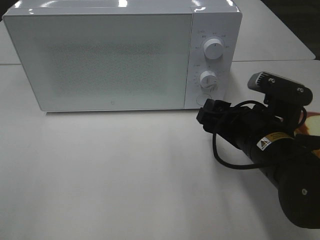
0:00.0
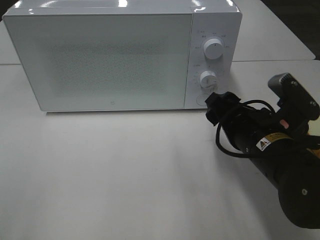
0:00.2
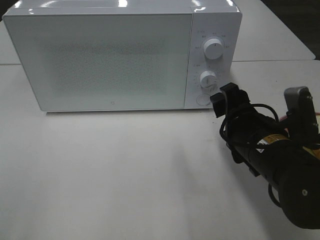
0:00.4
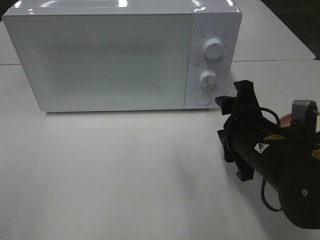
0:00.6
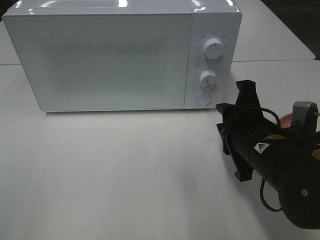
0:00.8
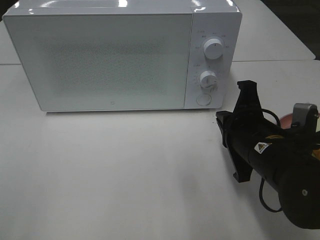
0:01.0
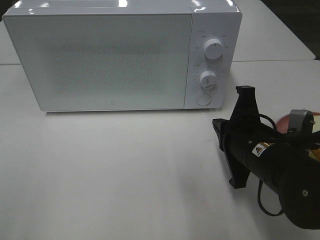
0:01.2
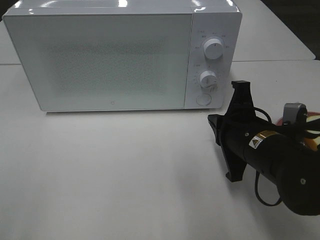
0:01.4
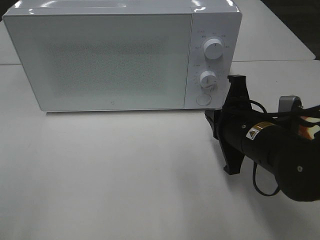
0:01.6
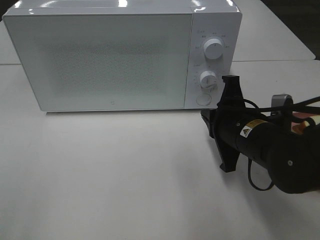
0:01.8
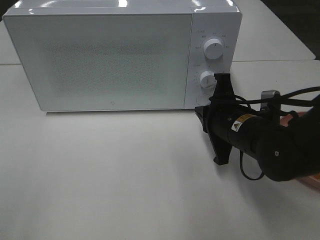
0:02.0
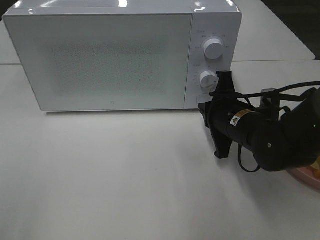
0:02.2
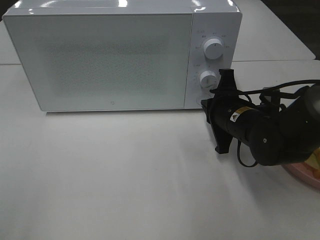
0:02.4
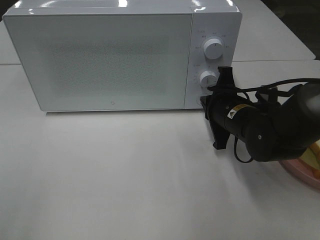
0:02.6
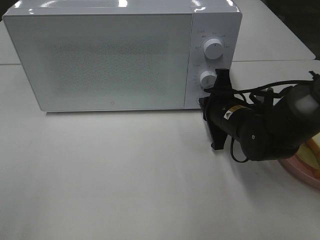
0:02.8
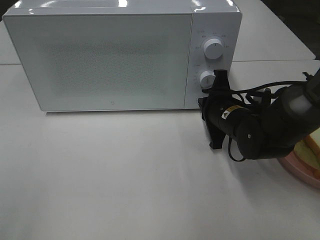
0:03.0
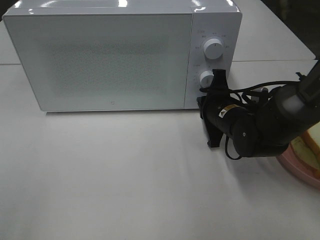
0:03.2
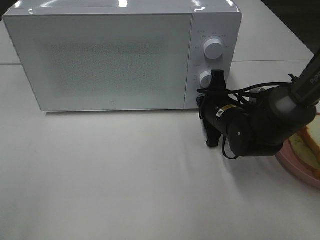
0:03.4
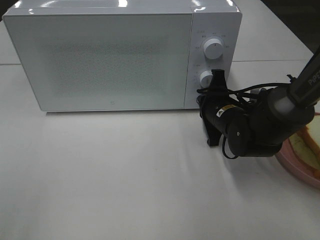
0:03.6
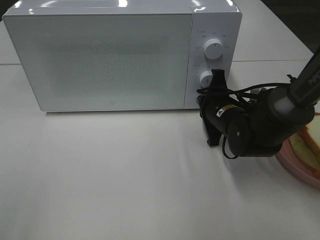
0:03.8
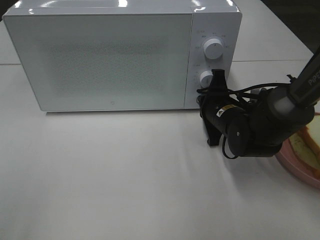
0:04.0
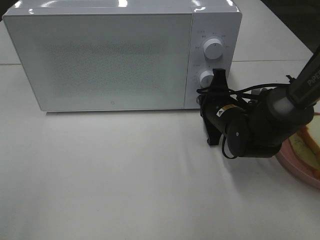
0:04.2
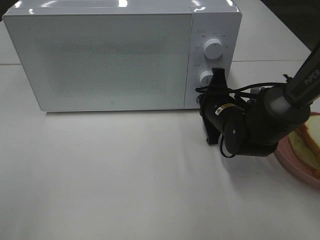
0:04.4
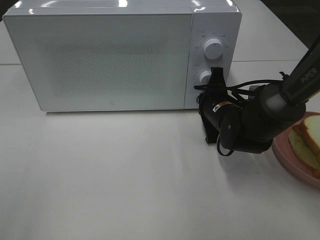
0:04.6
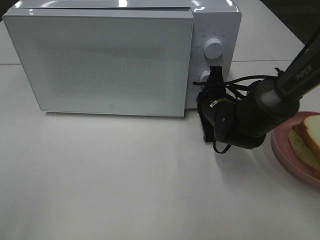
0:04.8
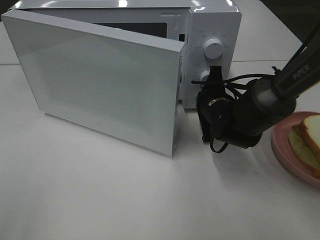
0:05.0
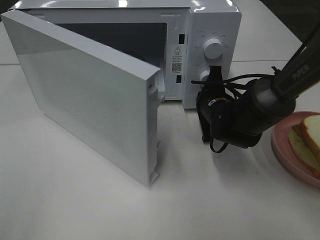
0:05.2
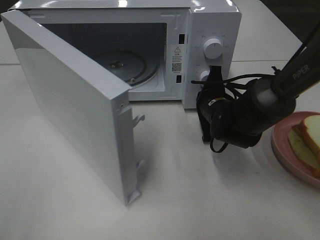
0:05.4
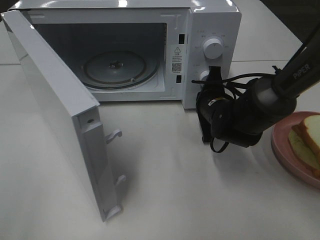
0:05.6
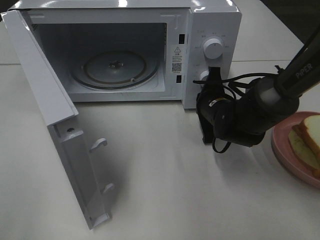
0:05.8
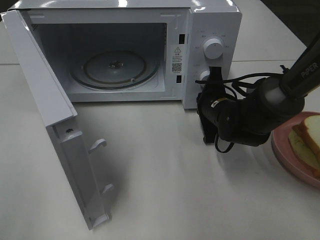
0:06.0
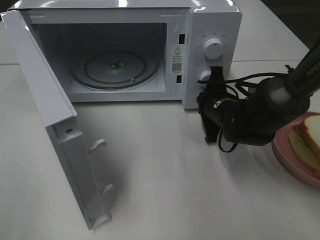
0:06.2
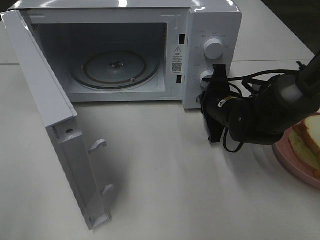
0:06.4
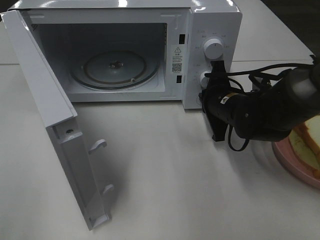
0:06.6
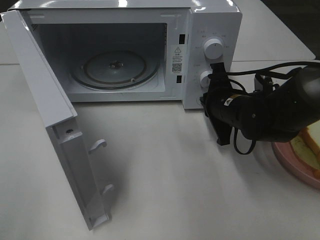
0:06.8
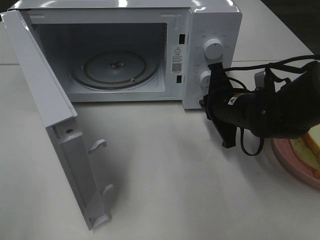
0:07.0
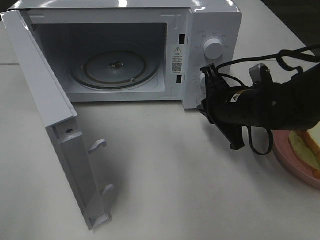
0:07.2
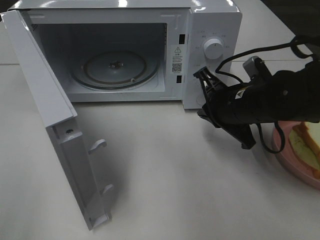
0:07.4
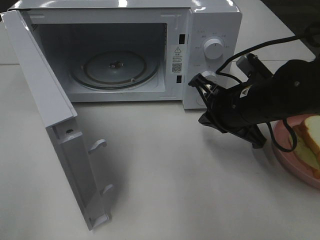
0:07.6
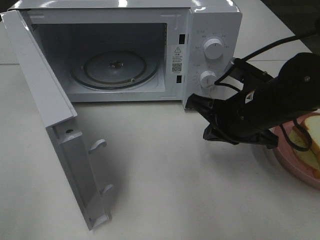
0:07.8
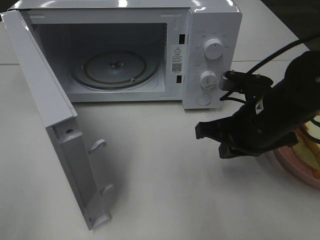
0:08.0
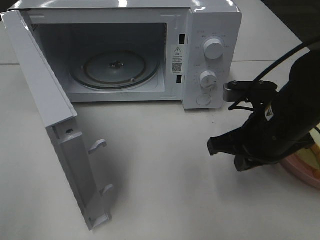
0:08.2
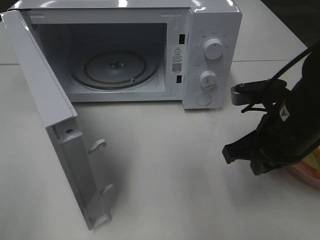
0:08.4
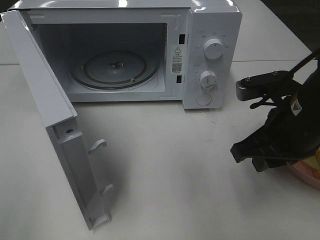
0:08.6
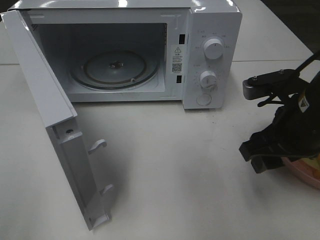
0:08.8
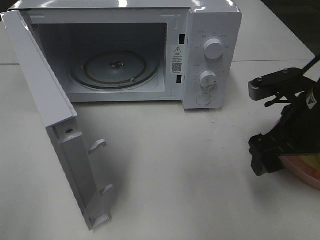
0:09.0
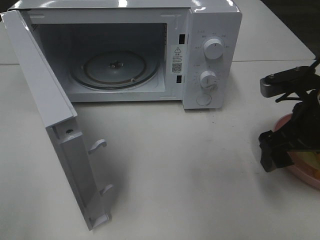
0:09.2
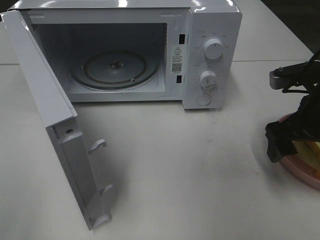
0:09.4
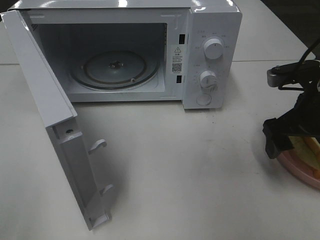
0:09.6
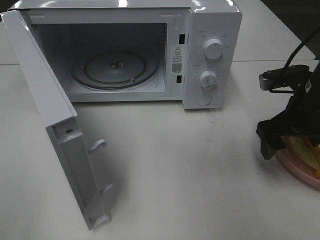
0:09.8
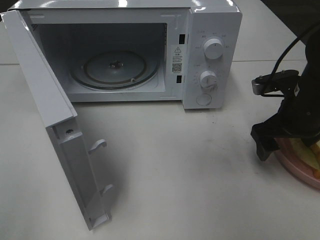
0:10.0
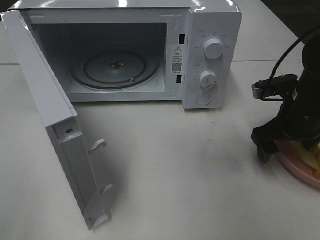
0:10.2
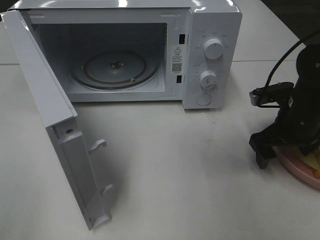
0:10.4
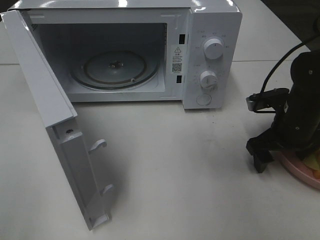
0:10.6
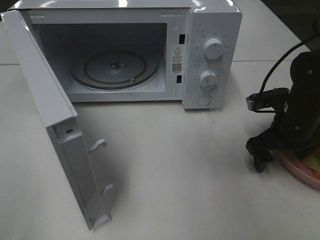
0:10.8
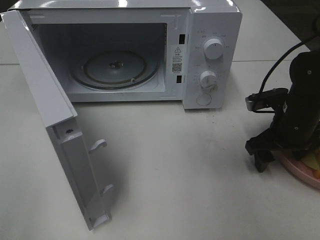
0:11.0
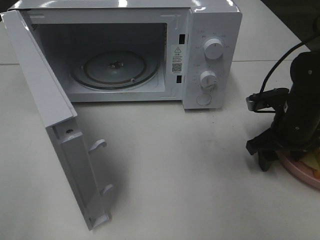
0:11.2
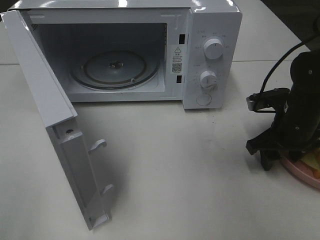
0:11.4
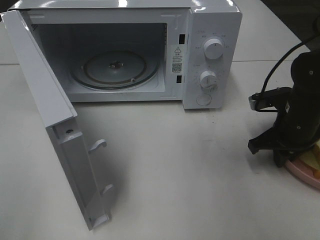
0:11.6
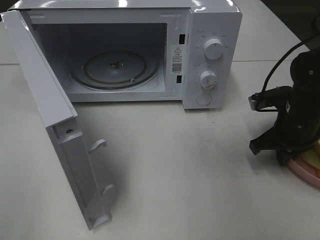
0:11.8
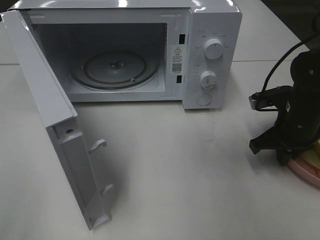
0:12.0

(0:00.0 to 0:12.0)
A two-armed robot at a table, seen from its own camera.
Task of the whole recording: Heat Sandwich.
Step, 0:00.0 - 0:06.8: Right hand: press the switch.
0:00.0 - 0:01.6: The right gripper closes its fingers.
0:01.6 - 0:03.0: The right gripper is displaced forward by approximately 10 cm.
0:03.0 - 0:04.4: The grippers move only a little.
0:06.0 - 0:07.6: The right gripper moves backward and upward, some 10 cm.
0:07.6 - 0:09.0: The right gripper shifts some 5 cm to the right, and opens.
0:09.0 - 0:10.4: The right gripper travels forward and downward by roughly 10 cm.
0:10.4 - 0:12.0: The right gripper closes.

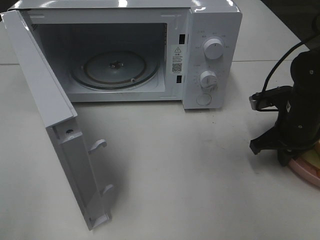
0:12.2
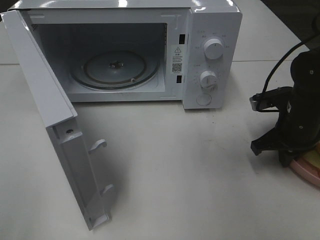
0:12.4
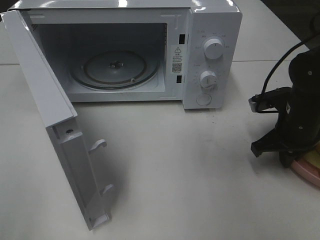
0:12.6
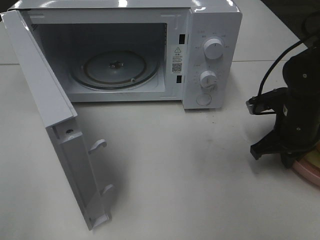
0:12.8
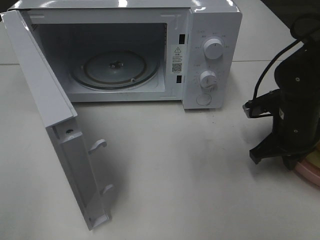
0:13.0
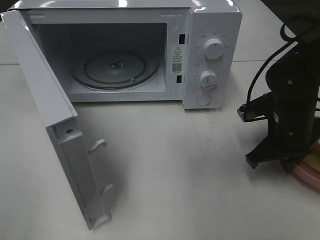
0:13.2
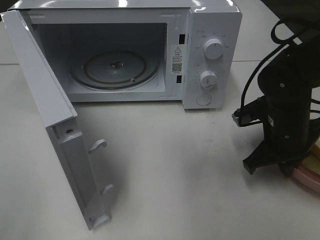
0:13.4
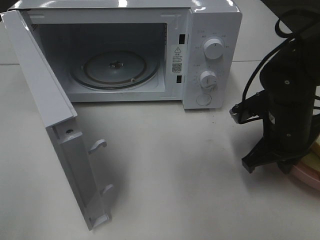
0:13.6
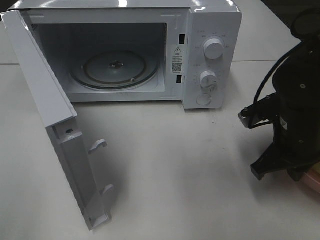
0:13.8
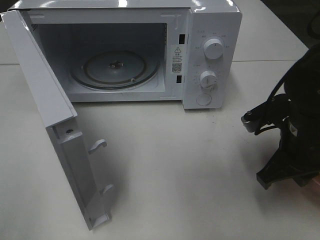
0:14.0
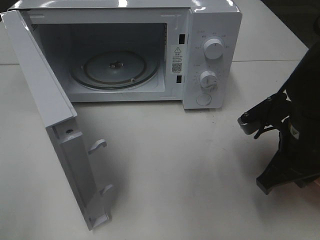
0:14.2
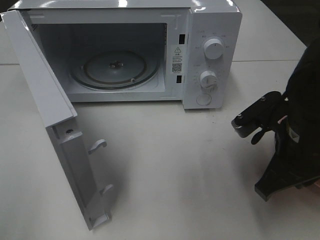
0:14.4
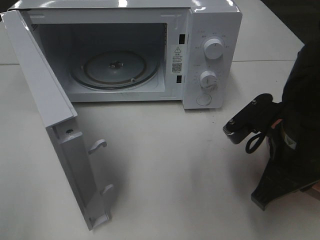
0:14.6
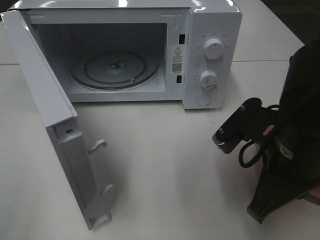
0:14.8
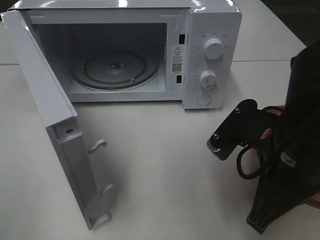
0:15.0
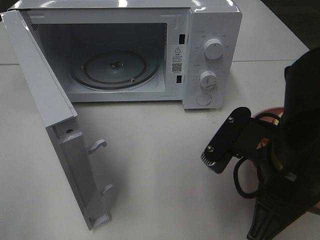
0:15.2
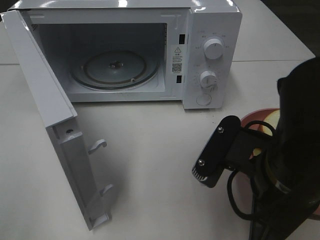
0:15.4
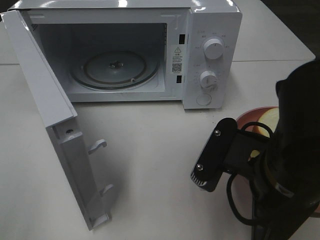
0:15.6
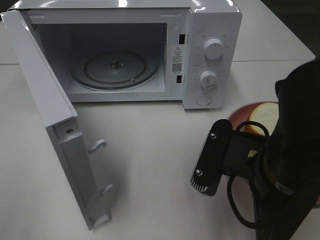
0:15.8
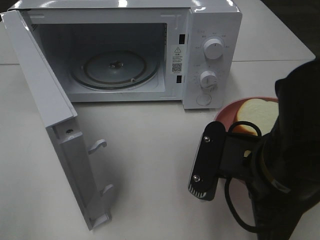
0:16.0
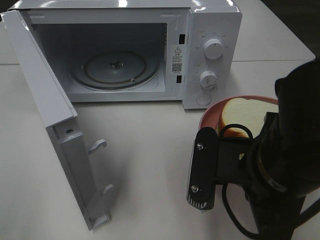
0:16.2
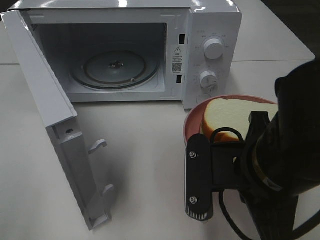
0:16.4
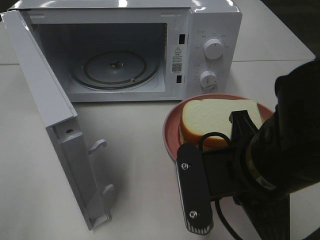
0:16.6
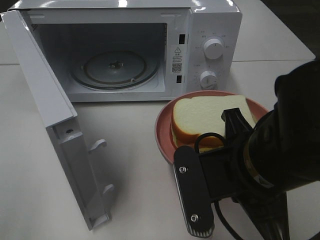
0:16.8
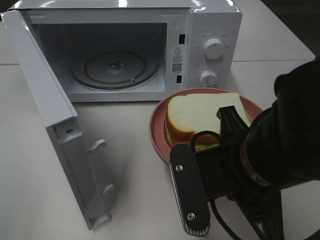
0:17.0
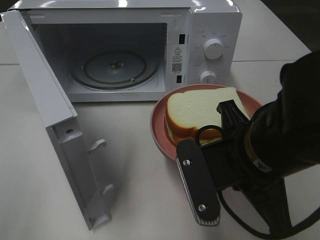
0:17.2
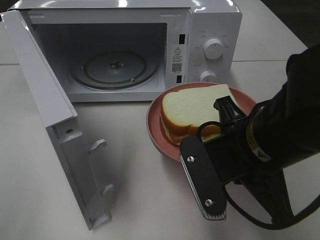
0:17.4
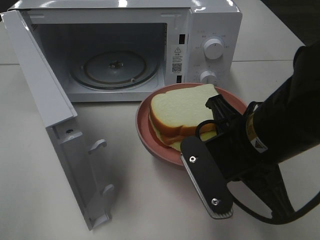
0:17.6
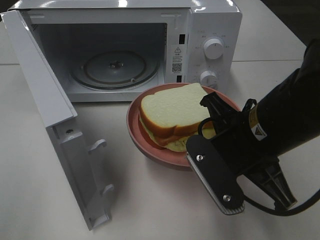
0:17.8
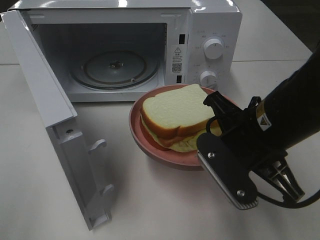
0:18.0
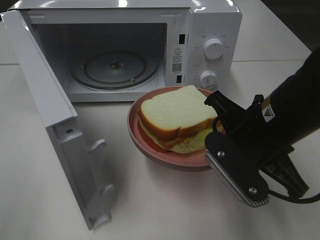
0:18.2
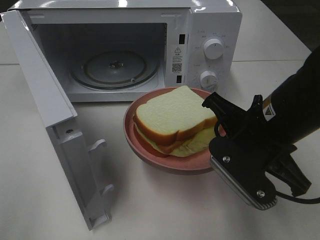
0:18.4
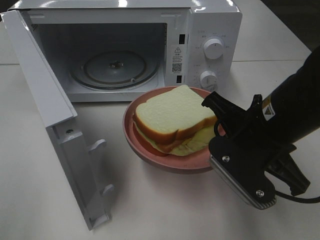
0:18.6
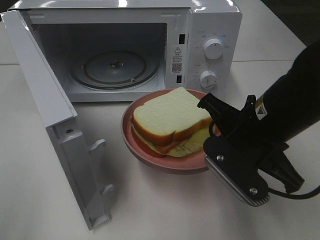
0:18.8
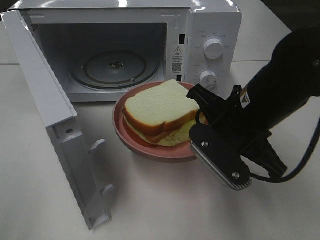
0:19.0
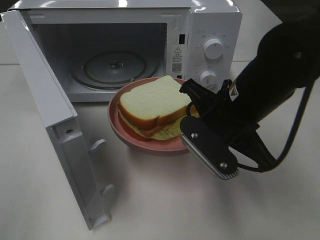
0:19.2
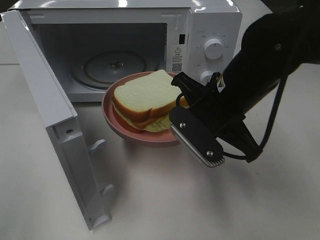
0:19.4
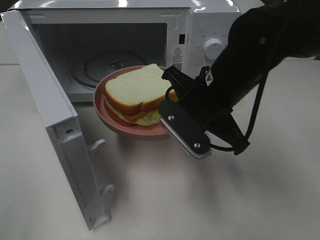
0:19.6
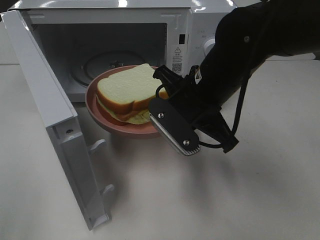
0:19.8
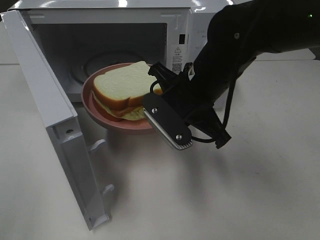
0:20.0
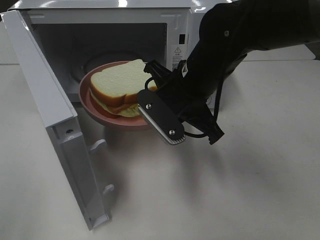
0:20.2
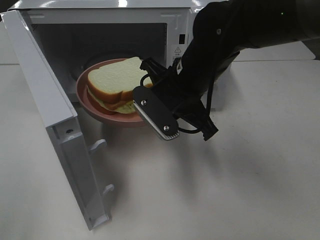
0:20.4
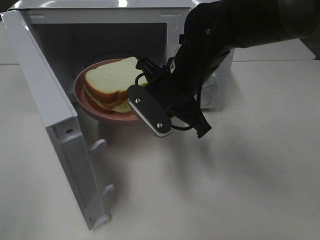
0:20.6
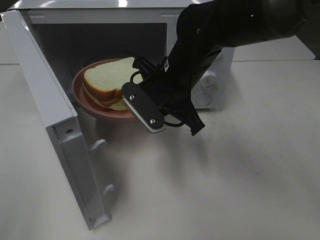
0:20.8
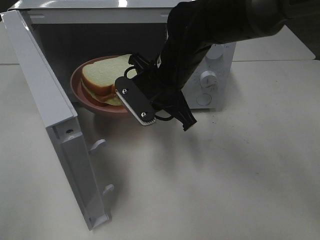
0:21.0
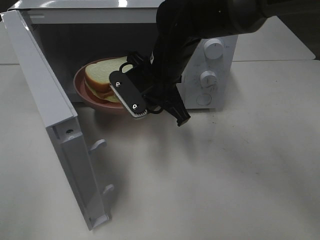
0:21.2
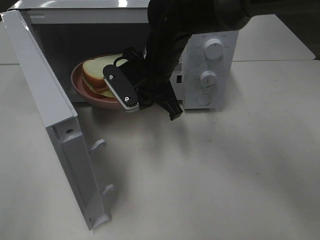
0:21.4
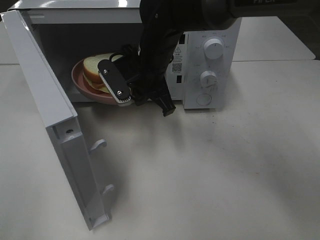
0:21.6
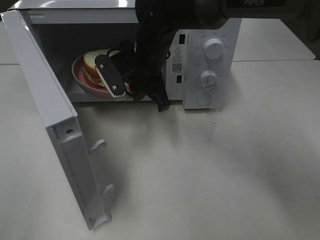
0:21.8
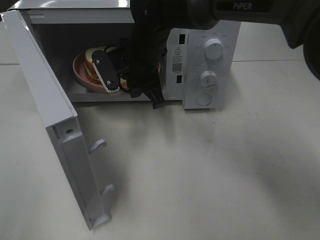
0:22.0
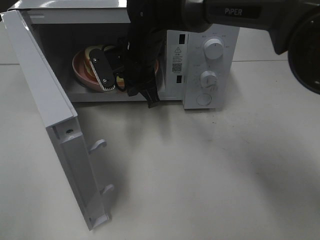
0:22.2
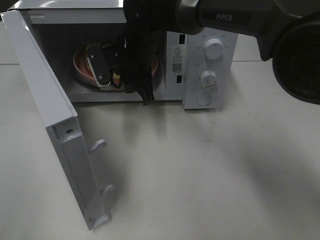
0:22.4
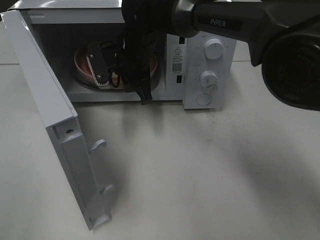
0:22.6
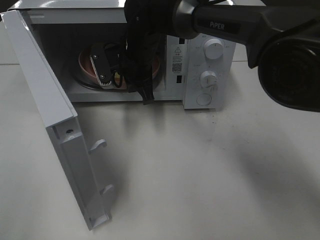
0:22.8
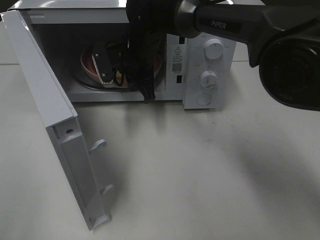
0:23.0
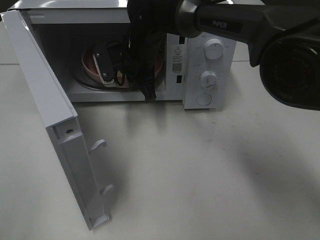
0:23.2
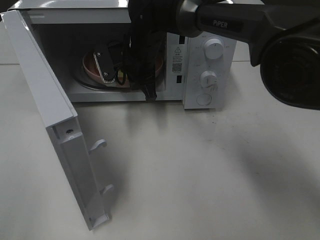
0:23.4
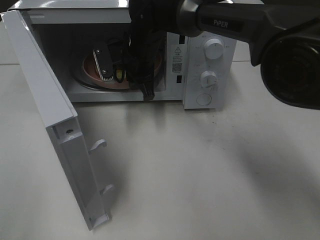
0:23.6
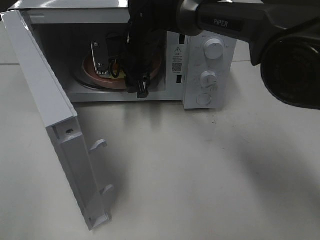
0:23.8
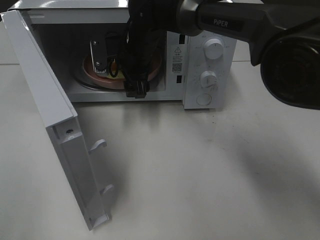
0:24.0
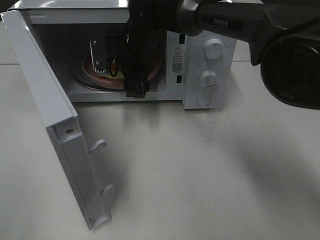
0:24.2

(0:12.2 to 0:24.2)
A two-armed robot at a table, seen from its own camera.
Task of the whole recording: Heat Sandwich.
Step, 0:12.4 - 0:24.2: Right hand: place the plate in the microwave.
0:12.2 - 0:13.8: The right gripper goes roughly 5 cm backward.
0:13.8 - 0:15.2: The right gripper heads backward, to the left and upward, covering approximately 15 cm.
0:16.6 - 0:18.2: The right gripper shifts roughly 5 cm forward.
0:18.2 - 0:19.8: The right gripper travels forward and to the left by roughly 10 cm.
0:19.8 - 0:21.2: The right gripper is displaced forward and to the left by some 10 cm.
0:21.2 - 0:22.6: The right gripper travels forward by approximately 5 cm.
0:22.6 - 0:24.2: The right gripper opens up.
